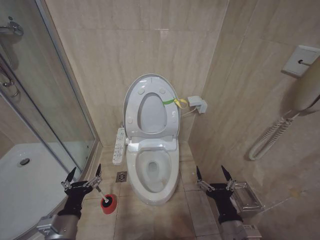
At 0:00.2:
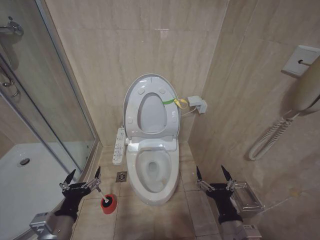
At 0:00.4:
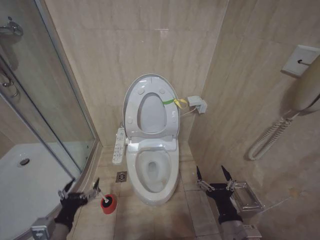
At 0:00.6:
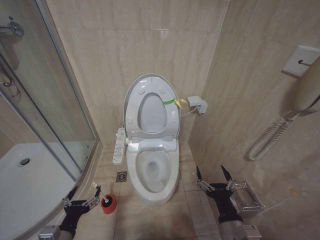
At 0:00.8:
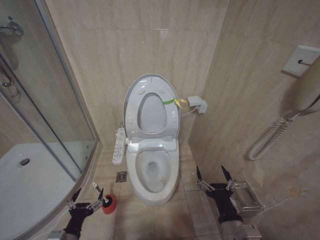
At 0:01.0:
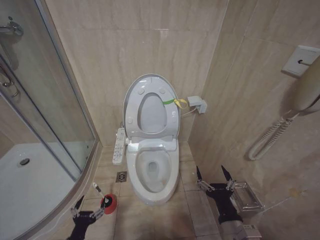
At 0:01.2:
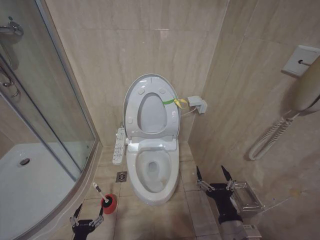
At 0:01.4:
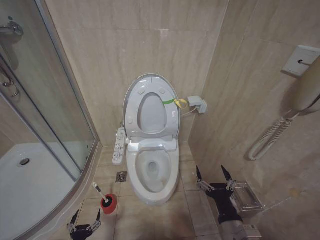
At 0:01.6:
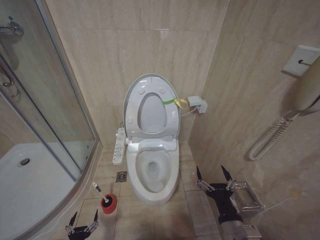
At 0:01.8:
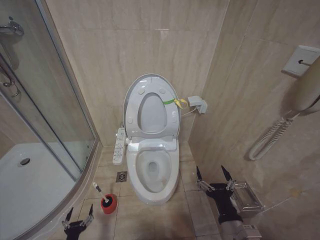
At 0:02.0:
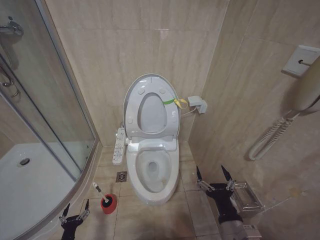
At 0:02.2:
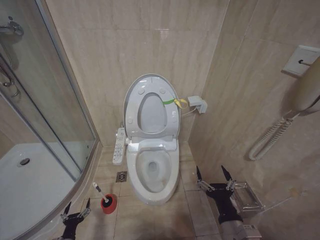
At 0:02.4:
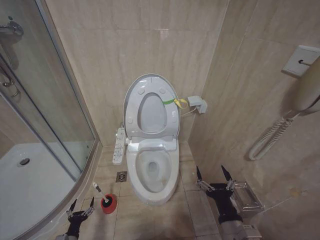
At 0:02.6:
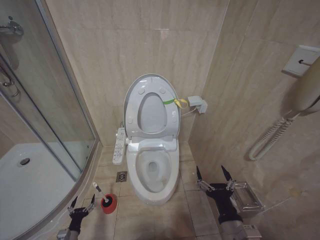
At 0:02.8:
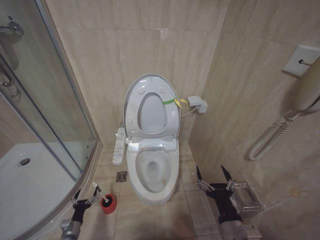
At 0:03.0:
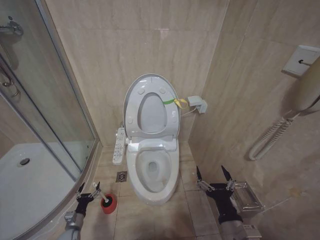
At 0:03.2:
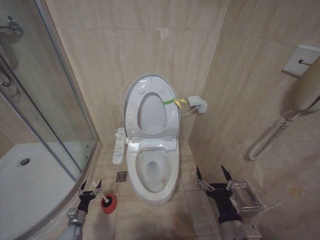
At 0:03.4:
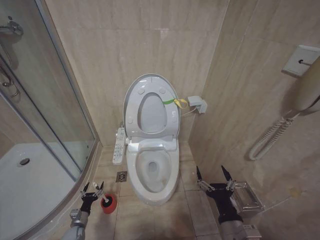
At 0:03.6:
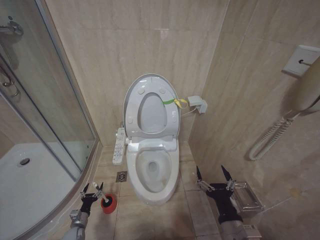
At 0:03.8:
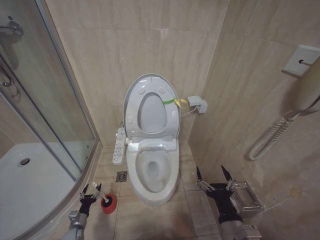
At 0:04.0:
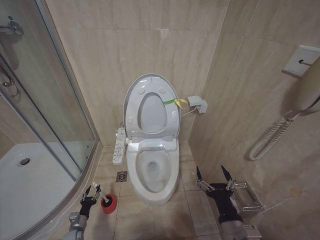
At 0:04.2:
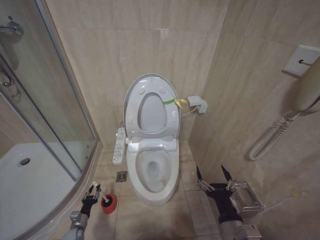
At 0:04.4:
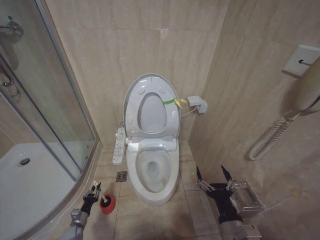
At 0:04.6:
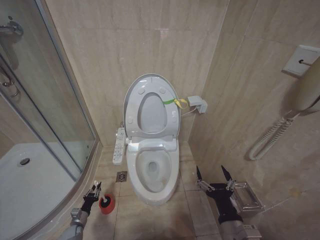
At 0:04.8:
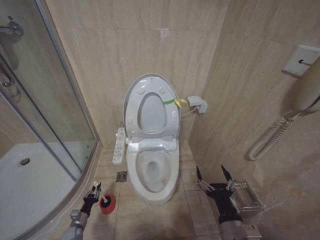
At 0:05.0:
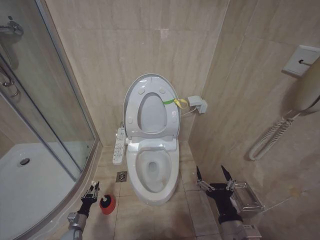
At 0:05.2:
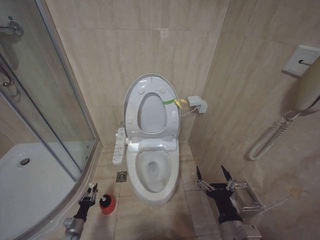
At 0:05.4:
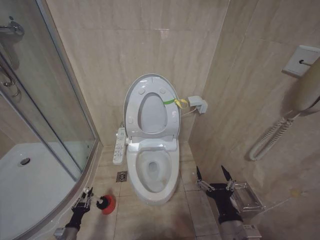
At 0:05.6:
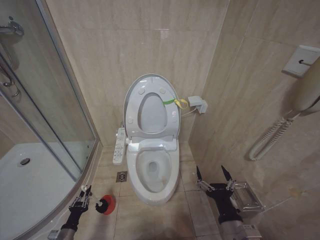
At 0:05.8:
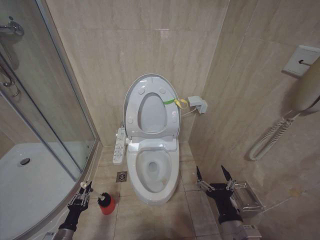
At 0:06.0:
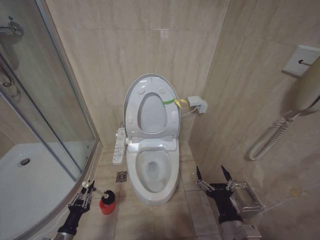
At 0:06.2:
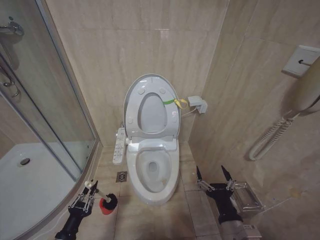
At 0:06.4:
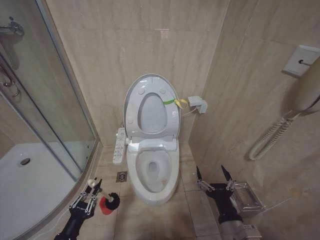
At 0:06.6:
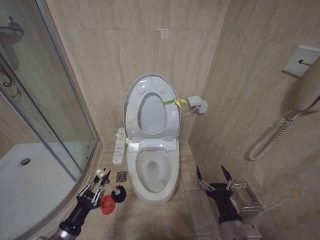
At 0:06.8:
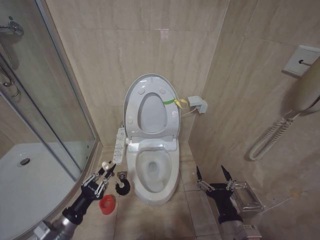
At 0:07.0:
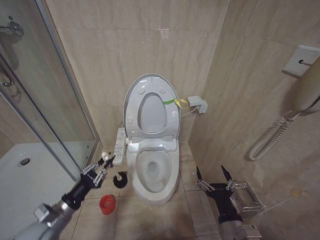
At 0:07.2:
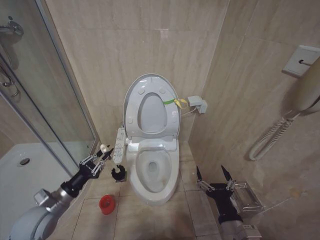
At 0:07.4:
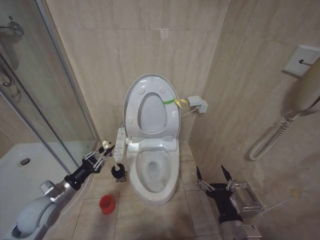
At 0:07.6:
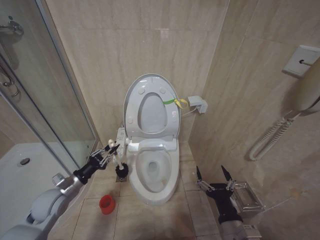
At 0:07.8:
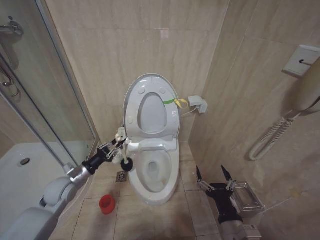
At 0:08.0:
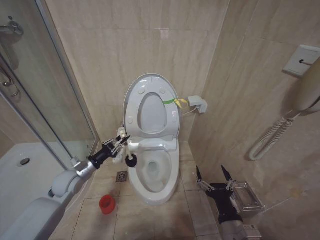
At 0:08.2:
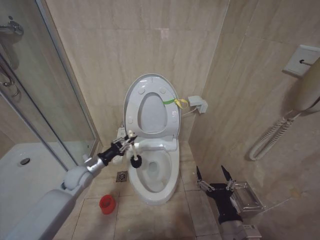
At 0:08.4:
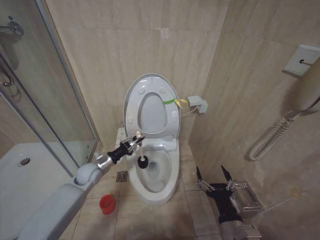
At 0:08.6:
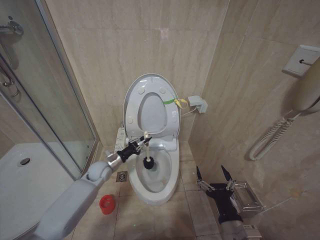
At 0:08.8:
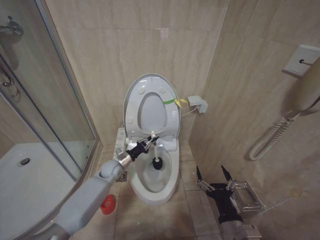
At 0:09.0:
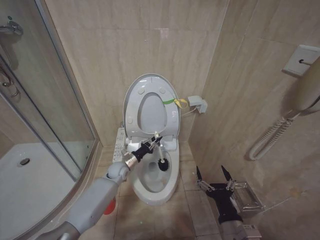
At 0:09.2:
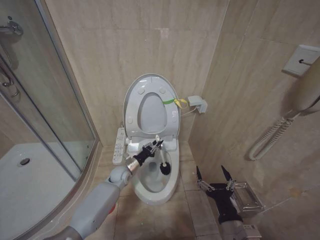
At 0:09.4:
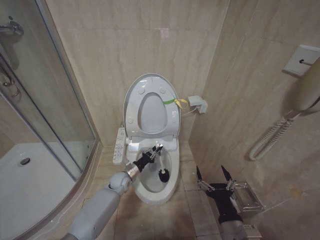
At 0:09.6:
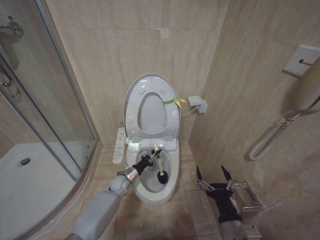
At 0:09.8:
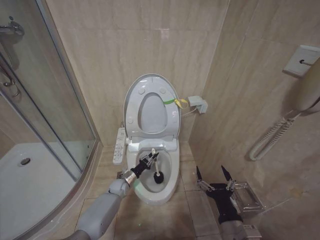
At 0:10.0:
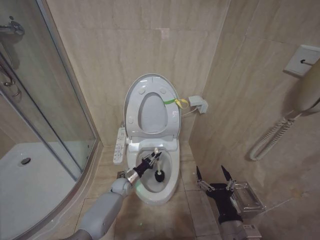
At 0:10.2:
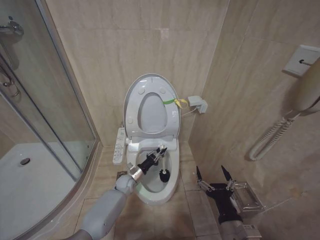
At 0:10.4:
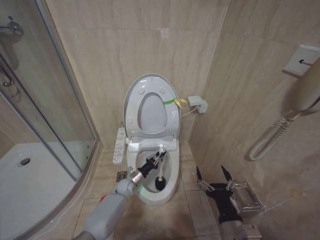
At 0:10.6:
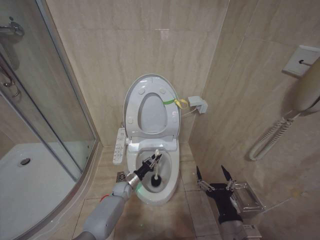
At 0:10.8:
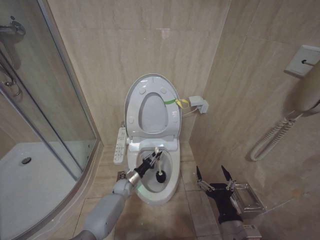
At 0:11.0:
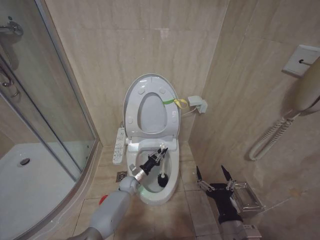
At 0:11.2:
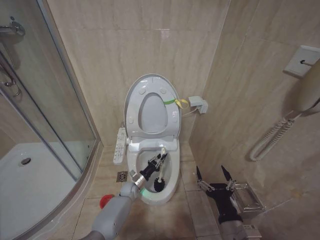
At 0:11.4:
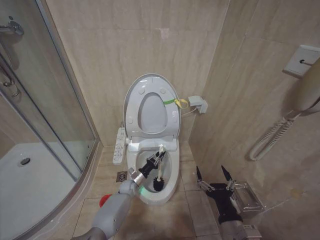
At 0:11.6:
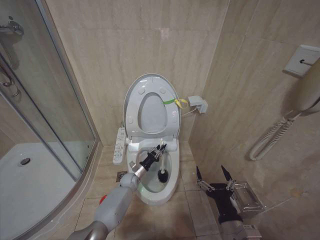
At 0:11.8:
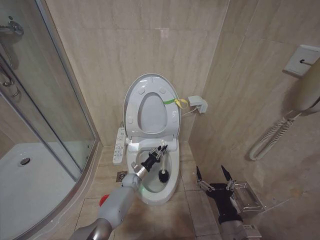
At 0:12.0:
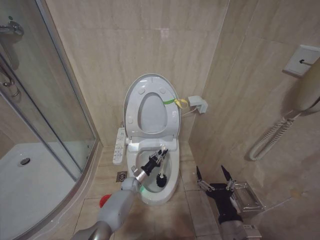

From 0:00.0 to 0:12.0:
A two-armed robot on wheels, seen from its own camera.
Task of the whole recording: Open the toilet lid, clean the toilet bowl with a toilet brush, close the toilet lid, and flush.
From 0:00.0 to 0:01.6: The left gripper is displaced downward by some 25 cm.
From 0:01.6 to 0:03.0: The left gripper is displaced forward and to the left by approximately 15 cm.
From 0:03.0 to 0:04.4: The left gripper closes its fingers.
From 0:04.4 to 0:06.0: The left gripper goes about 20 cm upward and backward.
From 0:06.0 to 0:07.6: The left gripper heads upward and forward, covering approximately 20 cm.
From 0:07.6 to 0:09.0: The left gripper is displaced to the right, forward and downward by some 25 cm.
From 0:09.0 to 0:10.4: The left gripper heads downward, covering approximately 10 cm.
From 0:10.4 to 0:12.0: The left gripper shifts by about 5 cm.

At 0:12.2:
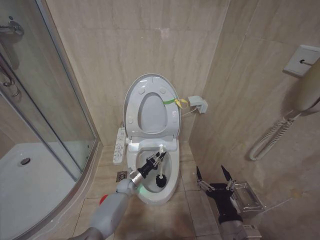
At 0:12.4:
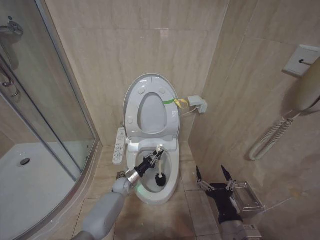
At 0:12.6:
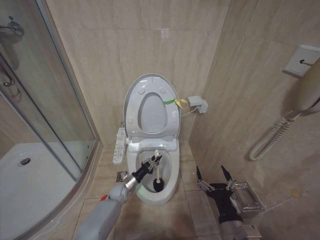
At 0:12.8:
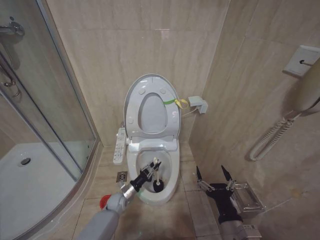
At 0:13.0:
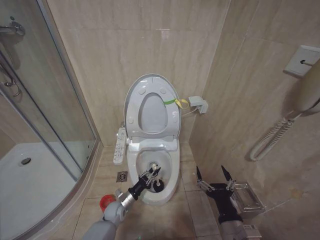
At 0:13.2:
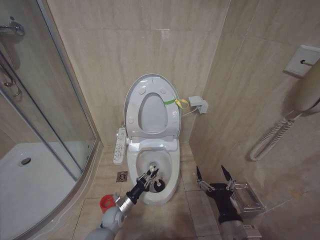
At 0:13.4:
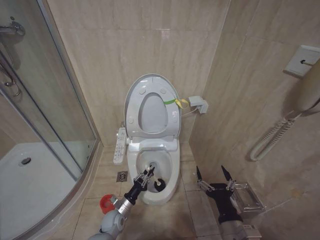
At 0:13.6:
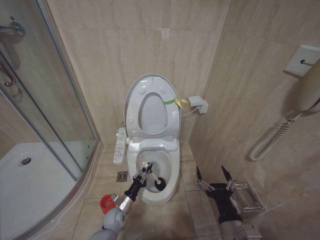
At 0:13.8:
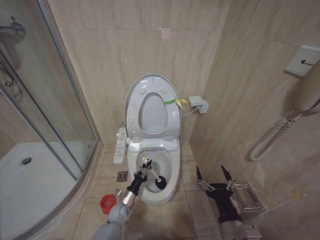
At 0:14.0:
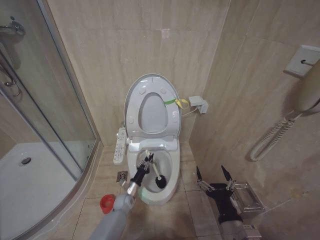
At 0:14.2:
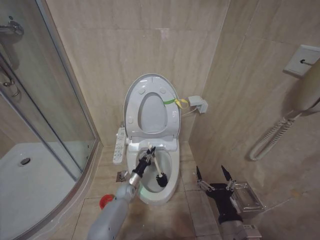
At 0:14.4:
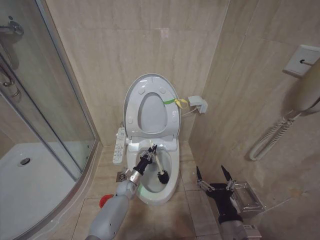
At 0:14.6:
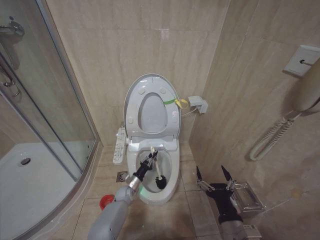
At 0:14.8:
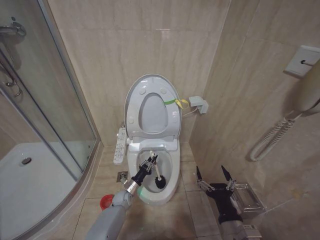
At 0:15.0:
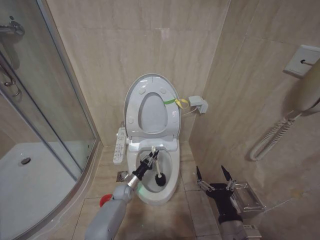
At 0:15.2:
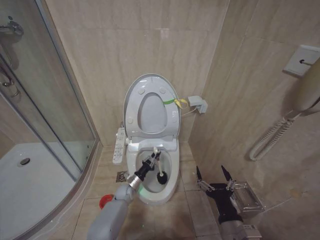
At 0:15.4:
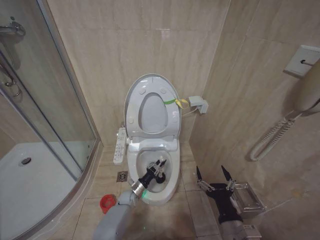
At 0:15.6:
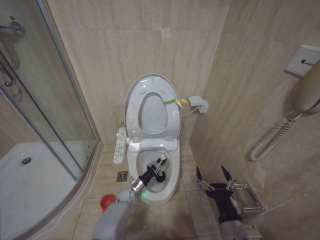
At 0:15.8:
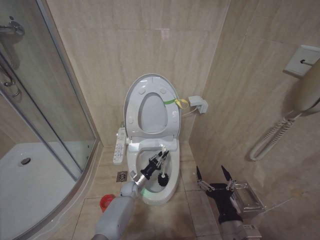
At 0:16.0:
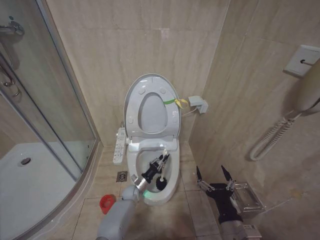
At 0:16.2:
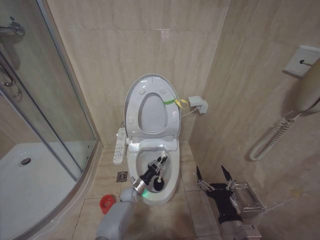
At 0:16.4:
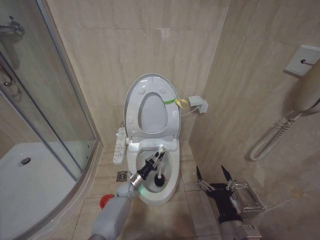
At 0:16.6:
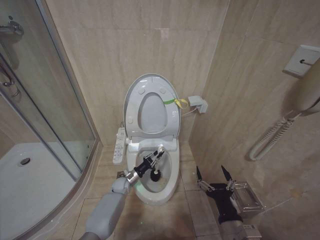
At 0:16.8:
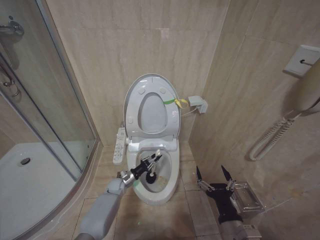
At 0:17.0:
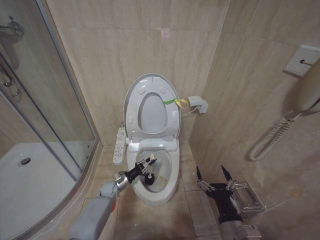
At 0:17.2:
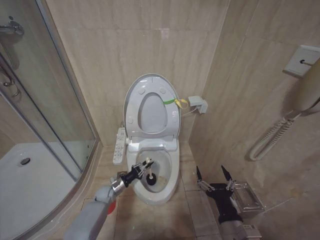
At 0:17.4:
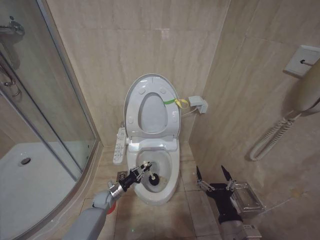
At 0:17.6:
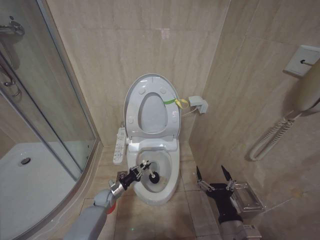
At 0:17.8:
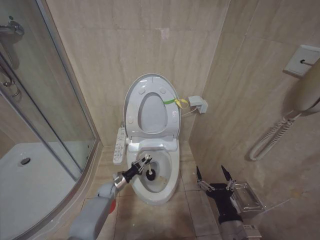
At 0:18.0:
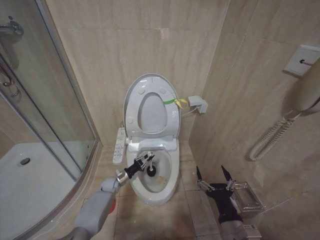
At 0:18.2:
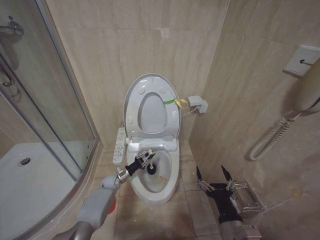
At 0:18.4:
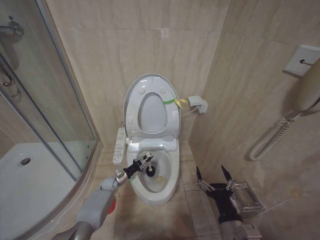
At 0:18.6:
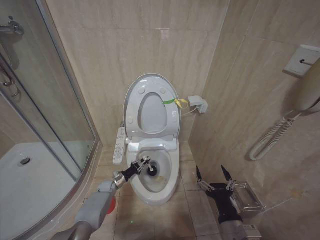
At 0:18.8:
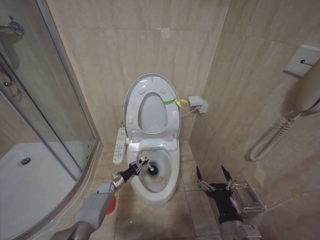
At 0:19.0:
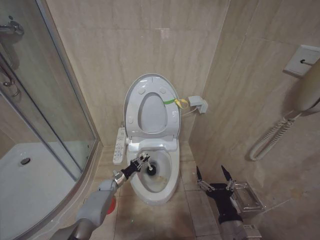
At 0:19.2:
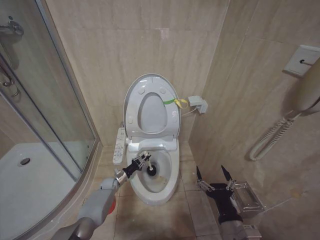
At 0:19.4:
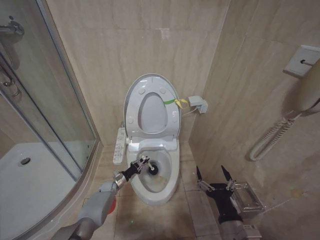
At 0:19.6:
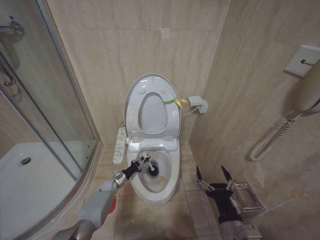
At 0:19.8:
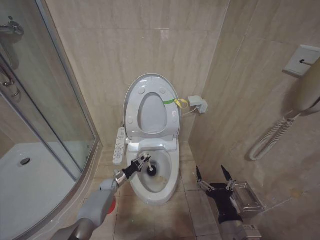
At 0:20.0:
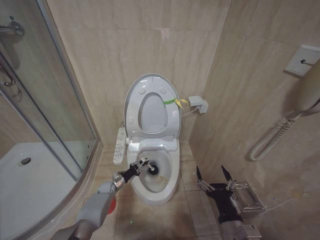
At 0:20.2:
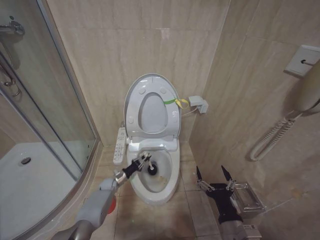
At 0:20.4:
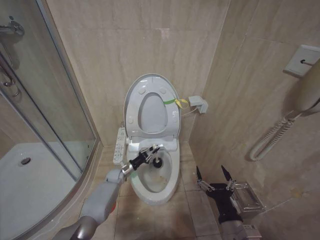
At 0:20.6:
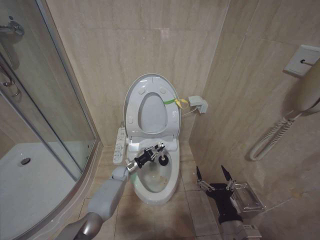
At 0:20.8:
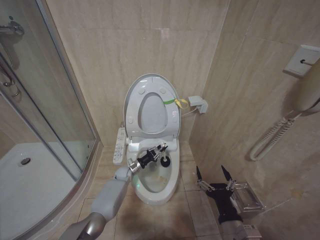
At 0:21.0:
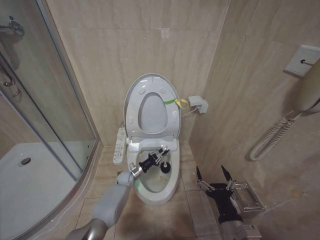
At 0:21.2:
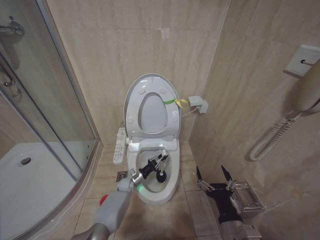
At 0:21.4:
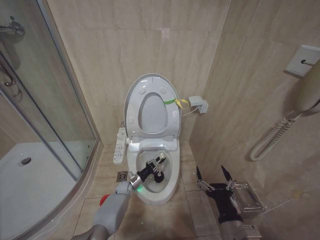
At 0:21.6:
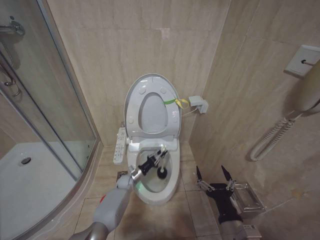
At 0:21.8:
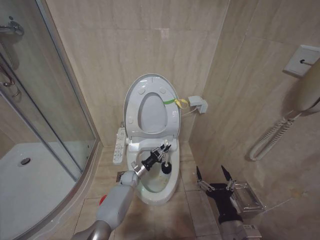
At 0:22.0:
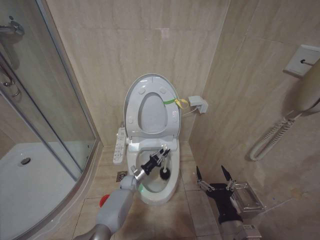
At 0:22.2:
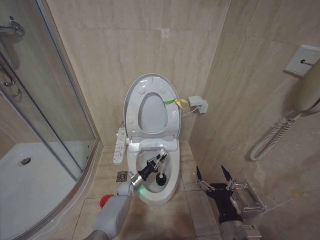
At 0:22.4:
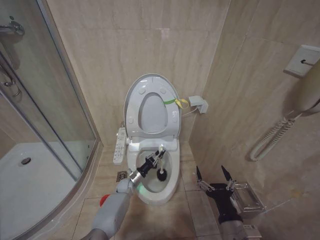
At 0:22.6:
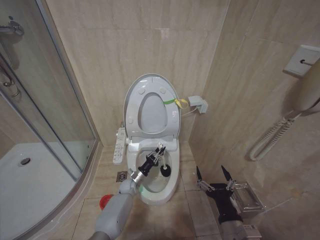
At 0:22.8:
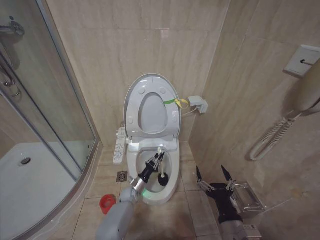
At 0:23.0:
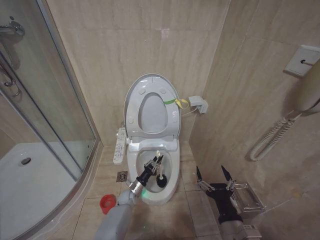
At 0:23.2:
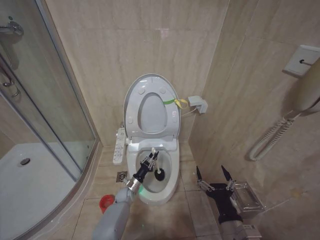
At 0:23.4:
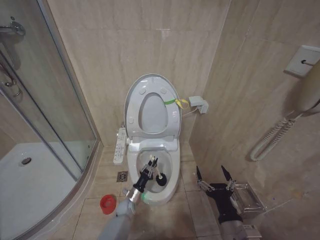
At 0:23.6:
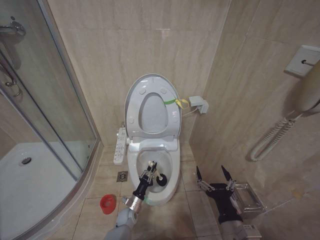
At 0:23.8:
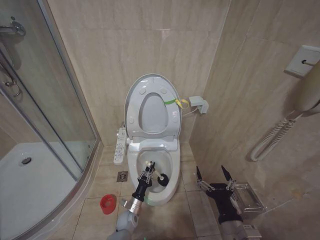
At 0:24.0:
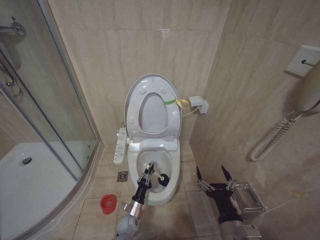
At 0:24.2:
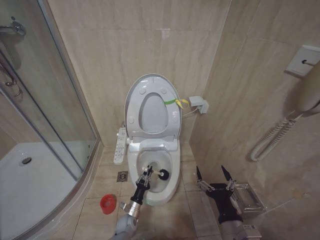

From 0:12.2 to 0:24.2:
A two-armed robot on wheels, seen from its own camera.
Task of the whole recording: Open the toilet lid, clean the toilet bowl with a toilet brush, close the toilet lid, and flush.
From 0:12.2 to 0:13.8: The left gripper travels backward by approximately 10 cm.
From 0:13.8 to 0:15.2: The left gripper shifts some 10 cm forward.
From 0:15.2 to 0:16.6: There are only small adjustments of the grippers.
From 0:16.6 to 0:18.2: The left gripper moves to the left, approximately 5 cm.
From 0:19.8 to 0:21.2: The left gripper is displaced to the right by about 10 cm.
From 0:21.2 to 0:22.6: The grippers make only small movements.
From 0:22.6 to 0:24.2: The left gripper is displaced backward and downward by some 15 cm.
